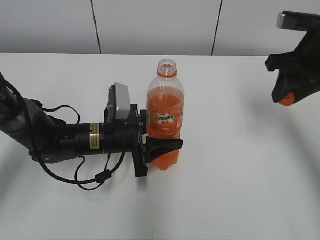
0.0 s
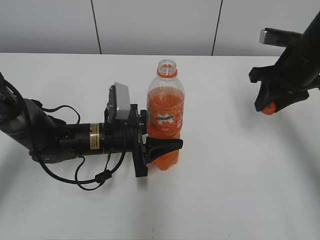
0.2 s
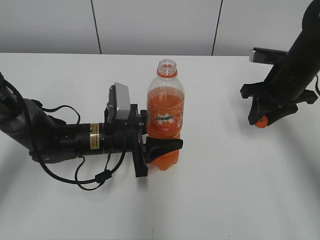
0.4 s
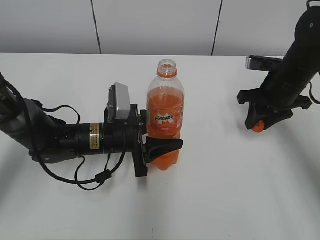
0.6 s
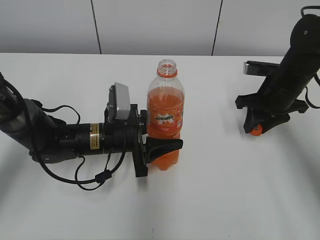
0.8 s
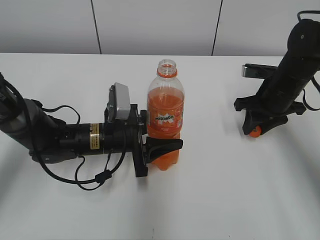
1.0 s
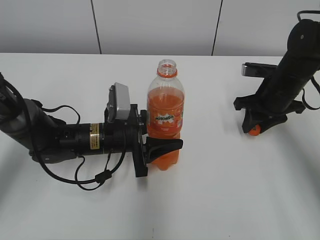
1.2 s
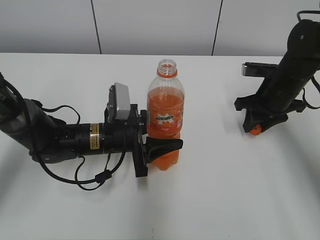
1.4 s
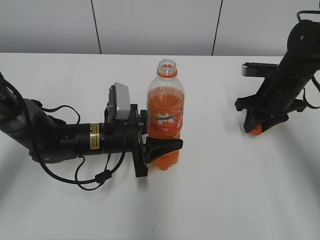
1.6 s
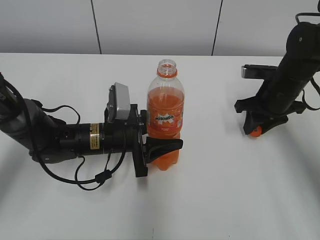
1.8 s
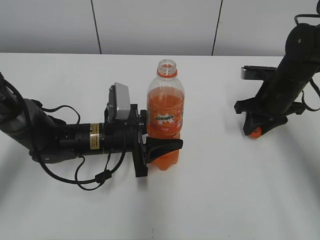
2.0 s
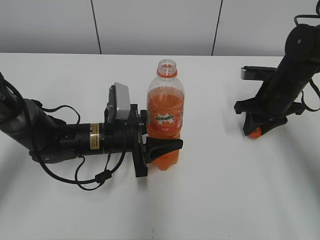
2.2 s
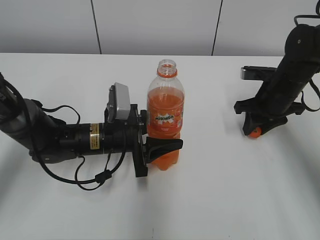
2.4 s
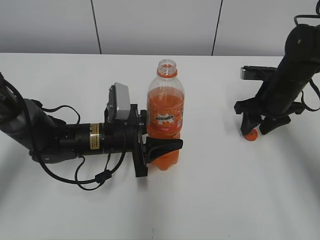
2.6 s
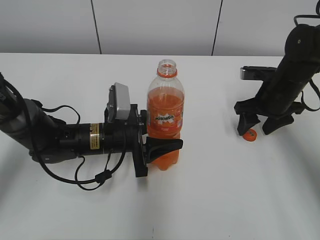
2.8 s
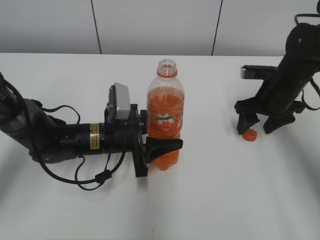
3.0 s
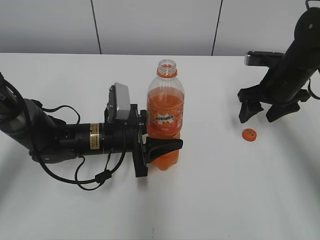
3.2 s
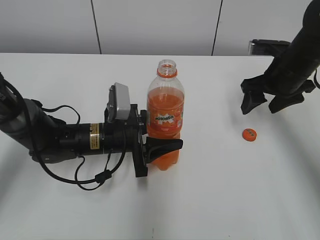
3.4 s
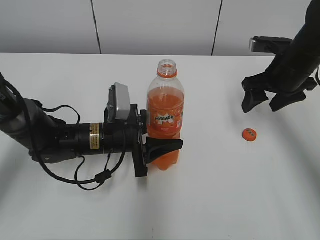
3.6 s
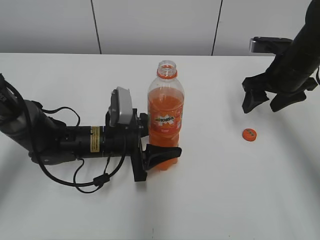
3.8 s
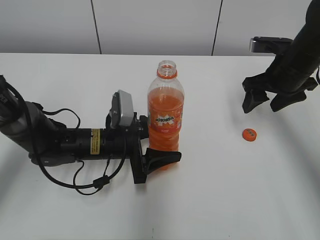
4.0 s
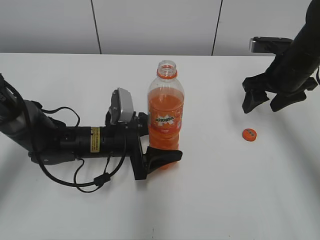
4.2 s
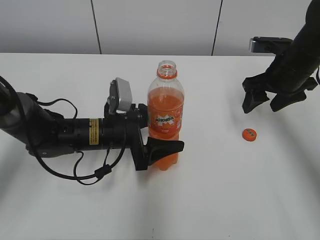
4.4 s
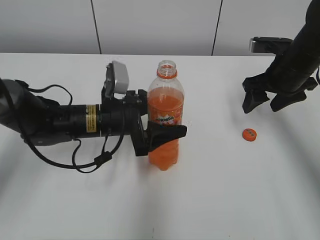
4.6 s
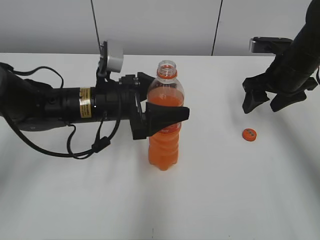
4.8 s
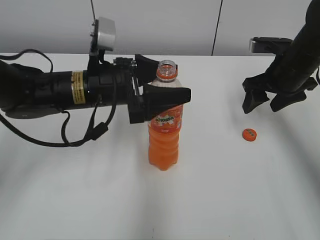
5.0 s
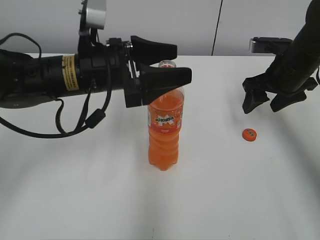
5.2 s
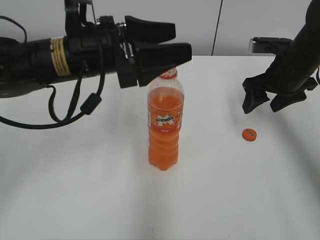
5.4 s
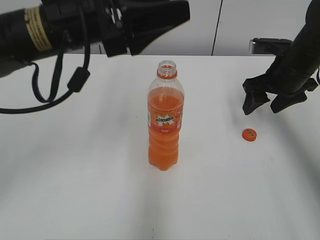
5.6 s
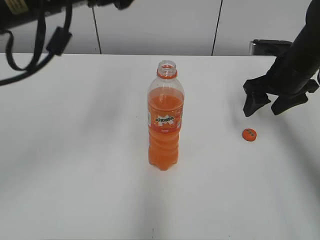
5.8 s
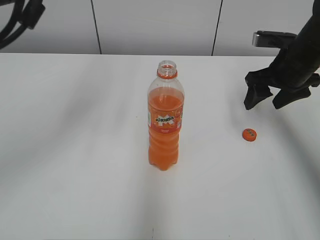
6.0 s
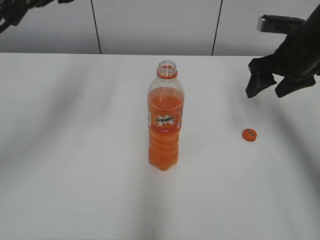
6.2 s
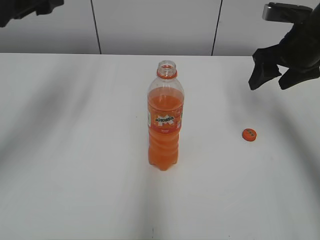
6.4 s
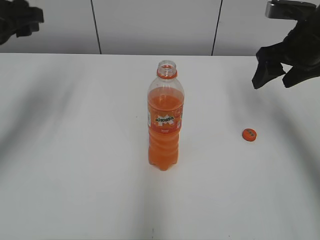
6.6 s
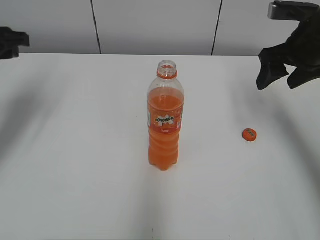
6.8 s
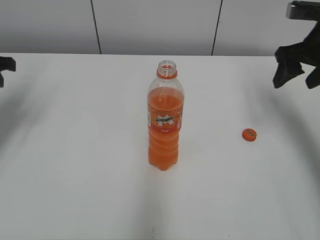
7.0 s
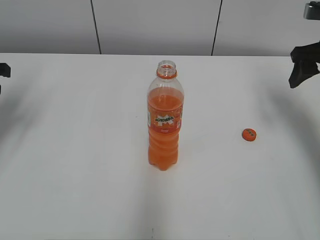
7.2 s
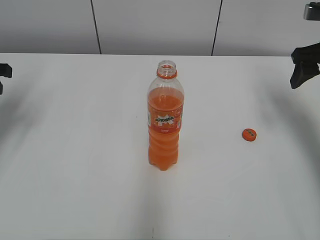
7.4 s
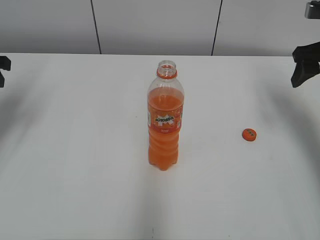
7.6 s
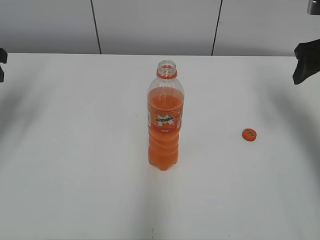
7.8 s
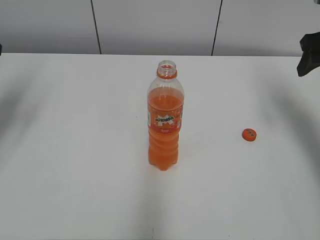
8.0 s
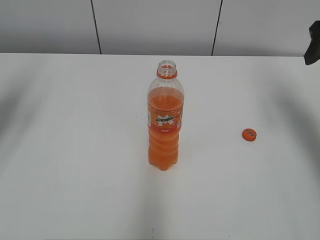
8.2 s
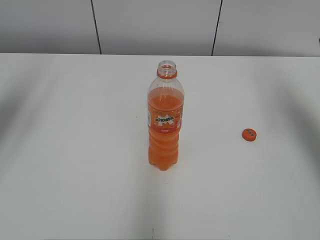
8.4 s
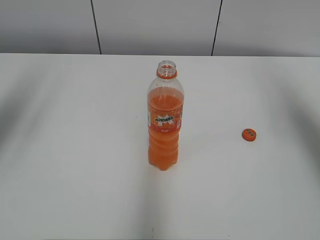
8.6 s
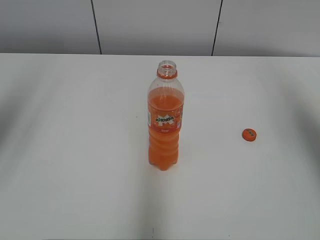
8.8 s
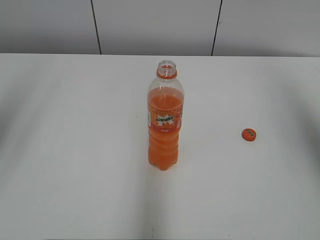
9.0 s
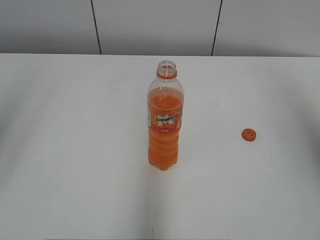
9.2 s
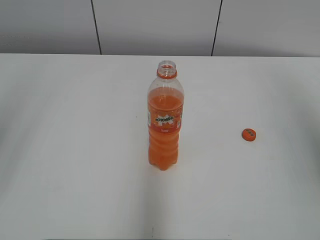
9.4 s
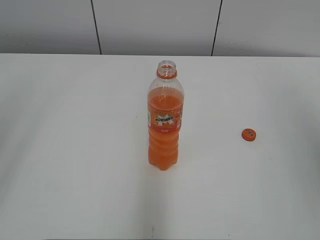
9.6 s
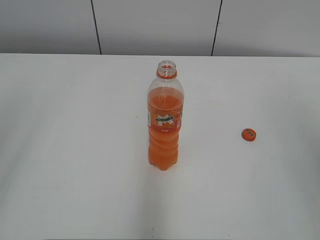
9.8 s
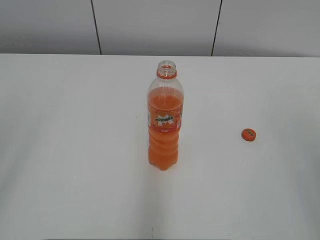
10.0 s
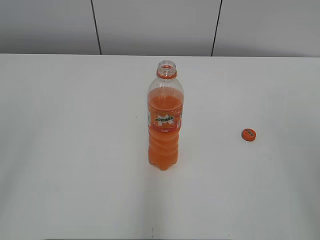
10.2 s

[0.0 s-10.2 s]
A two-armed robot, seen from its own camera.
Step, 0.0 to 2.6 s: Place the bottle cap on the right.
Step, 2.8 to 4.4 s: Place the Mirinda with the left hand.
0.0 to 1.4 s: The right gripper shifts some 10 cm downward.
1.4 to 3.0 s: The right gripper opens up.
3.0 to 4.4 s: The left gripper opens its fingers; the right gripper is displaced upward by approximately 5 cm.
4.4 to 5.8 s: The left gripper travels upward by roughly 25 cm.
5.8 to 7.2 s: The left gripper is displaced to the left and downward by about 25 cm, and closes up. Meanwhile the right gripper goes roughly 10 cm upward and to the right.
7.2 to 8.8 s: The right gripper shifts approximately 20 cm upward and backward.
8.8 to 10.2 s: The two grippers go some 20 cm backward.

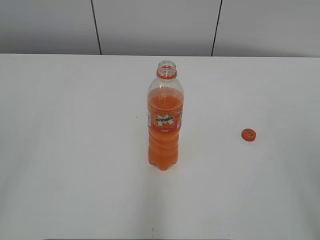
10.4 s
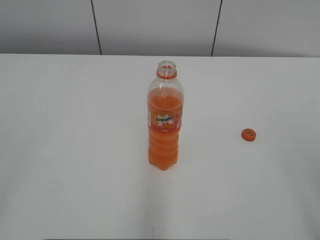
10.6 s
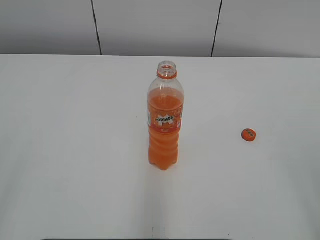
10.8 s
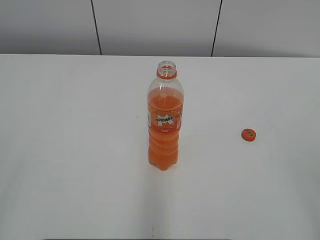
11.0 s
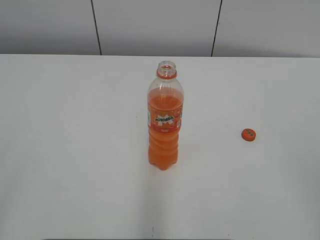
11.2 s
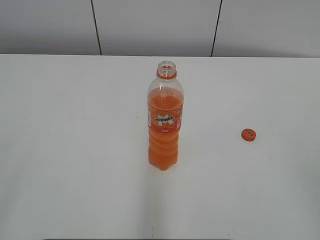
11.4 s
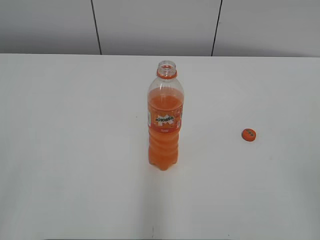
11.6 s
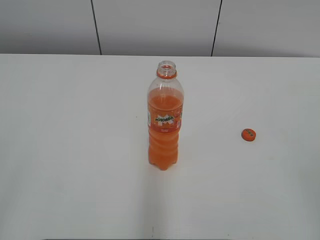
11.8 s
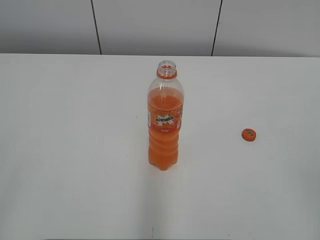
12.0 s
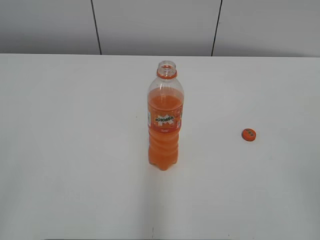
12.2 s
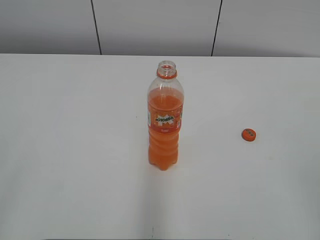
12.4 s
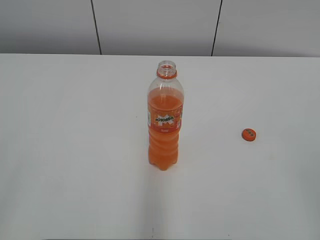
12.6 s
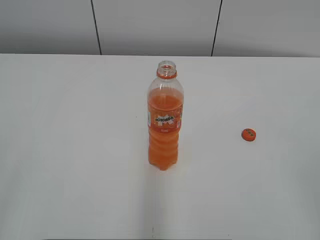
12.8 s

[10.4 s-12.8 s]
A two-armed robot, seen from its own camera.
11.6 to 12.8 s: The two grippers keep their place.

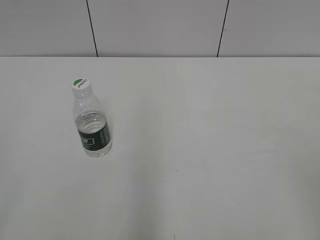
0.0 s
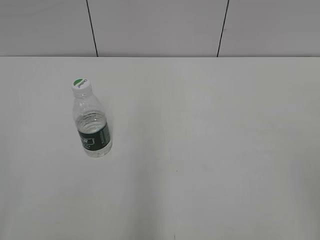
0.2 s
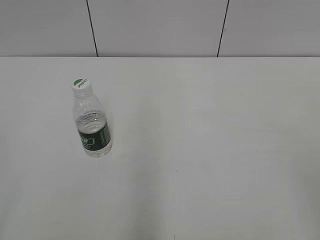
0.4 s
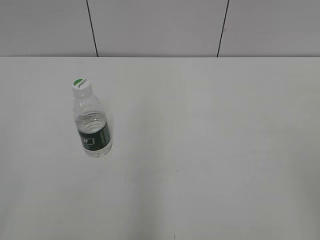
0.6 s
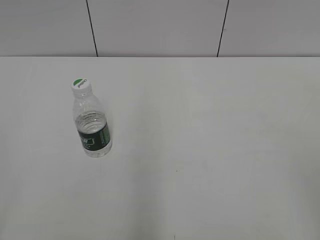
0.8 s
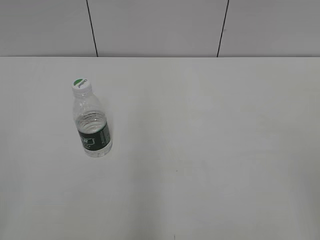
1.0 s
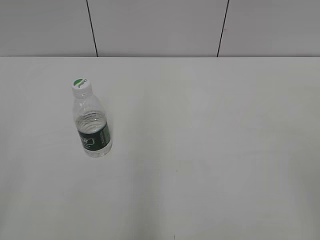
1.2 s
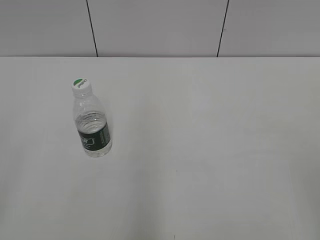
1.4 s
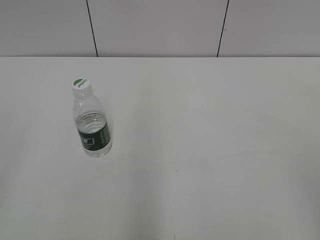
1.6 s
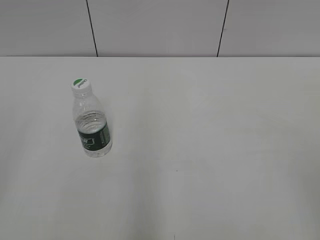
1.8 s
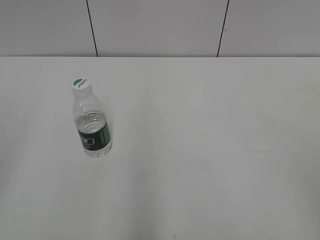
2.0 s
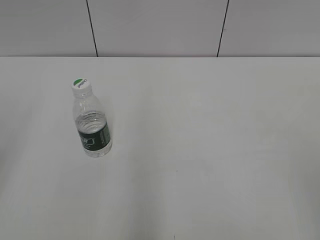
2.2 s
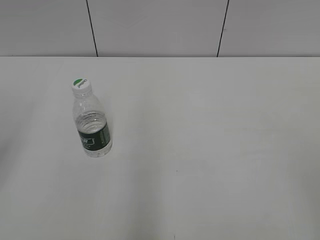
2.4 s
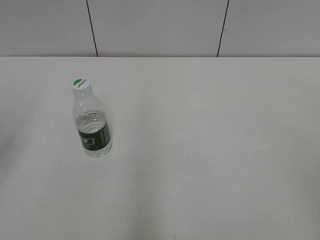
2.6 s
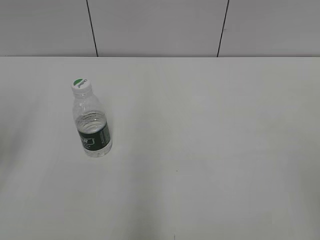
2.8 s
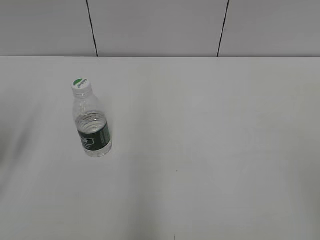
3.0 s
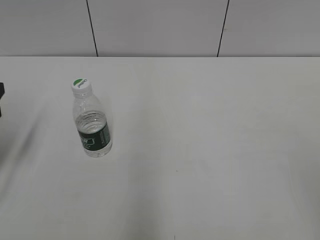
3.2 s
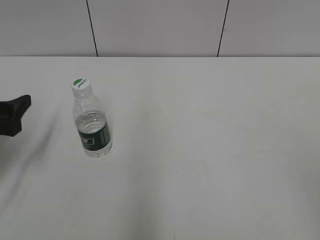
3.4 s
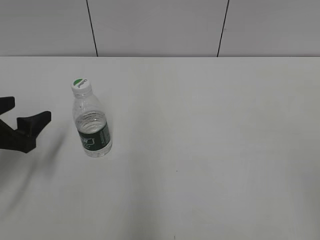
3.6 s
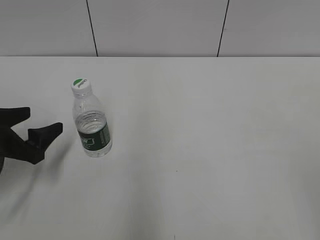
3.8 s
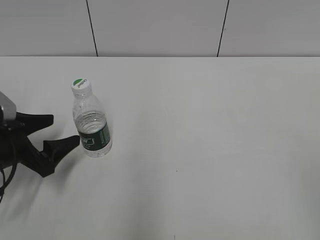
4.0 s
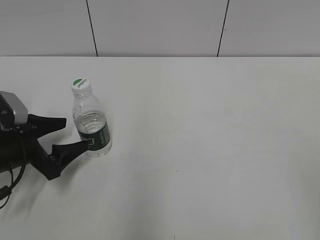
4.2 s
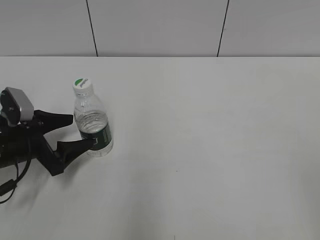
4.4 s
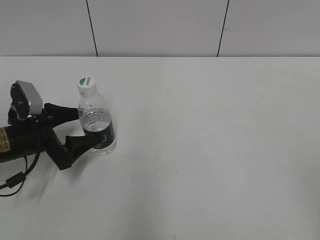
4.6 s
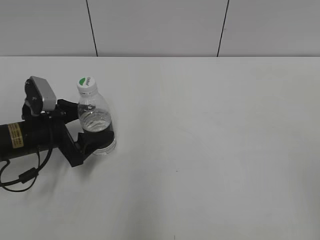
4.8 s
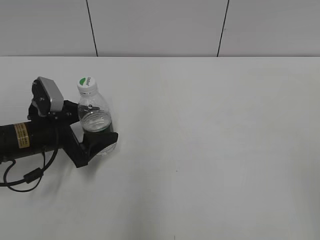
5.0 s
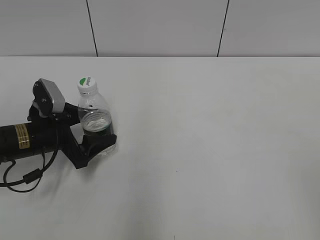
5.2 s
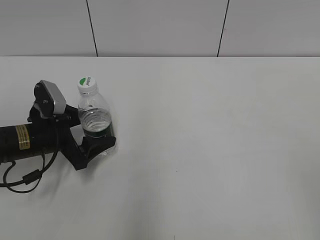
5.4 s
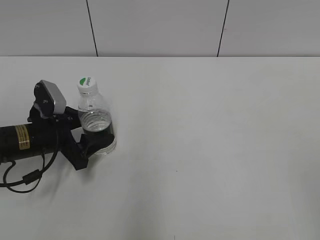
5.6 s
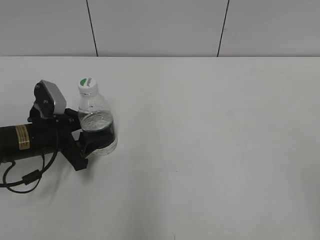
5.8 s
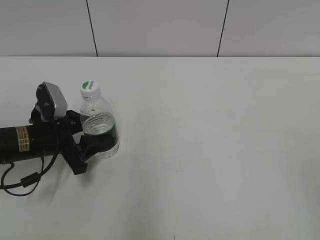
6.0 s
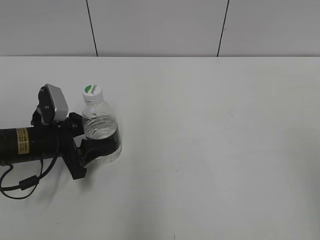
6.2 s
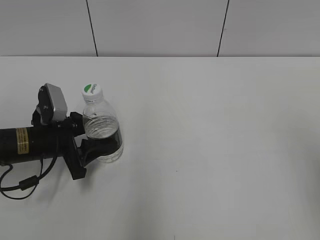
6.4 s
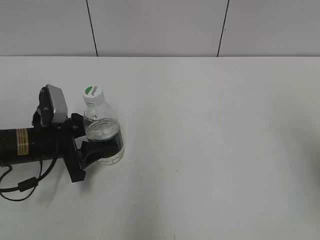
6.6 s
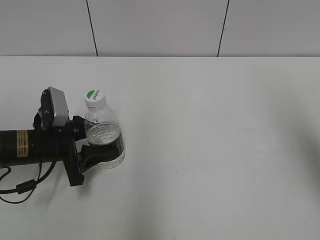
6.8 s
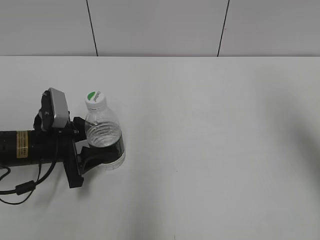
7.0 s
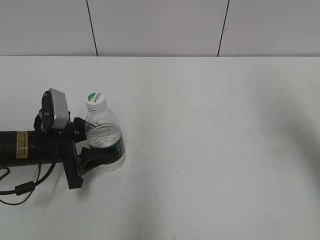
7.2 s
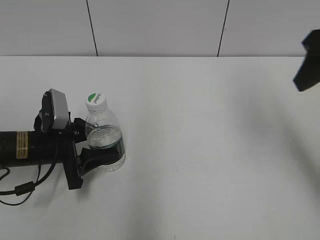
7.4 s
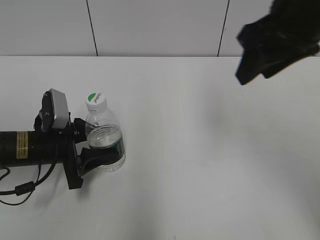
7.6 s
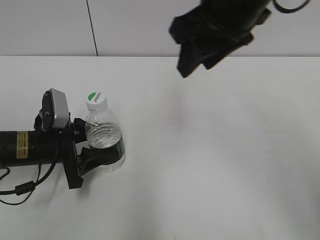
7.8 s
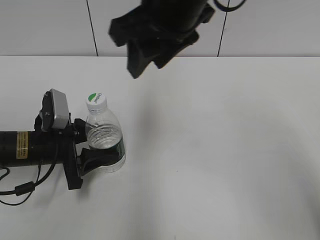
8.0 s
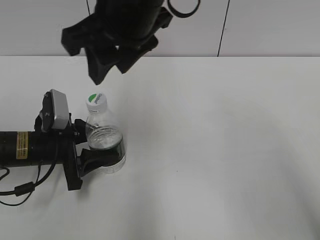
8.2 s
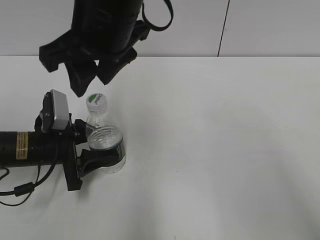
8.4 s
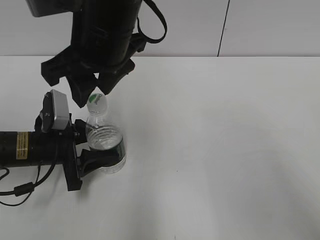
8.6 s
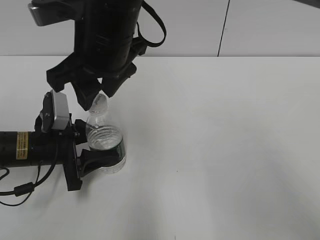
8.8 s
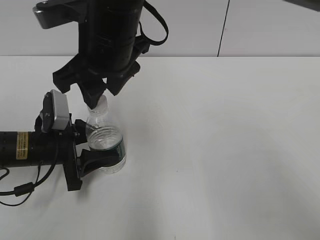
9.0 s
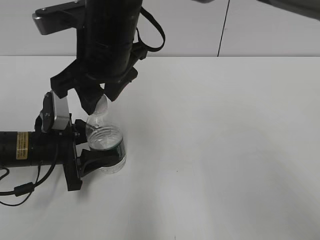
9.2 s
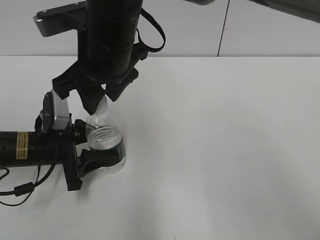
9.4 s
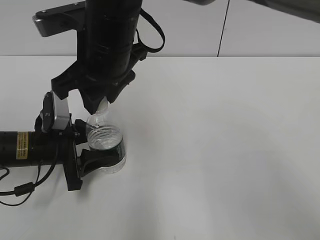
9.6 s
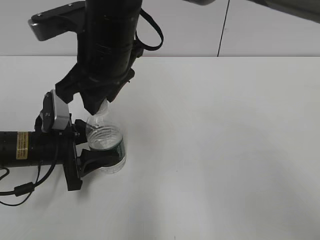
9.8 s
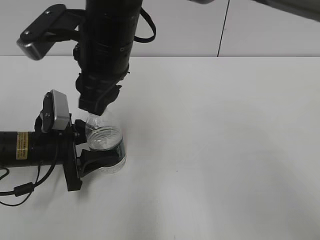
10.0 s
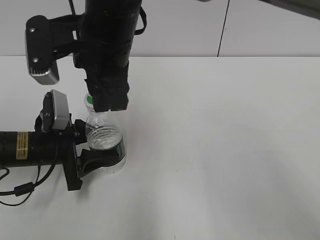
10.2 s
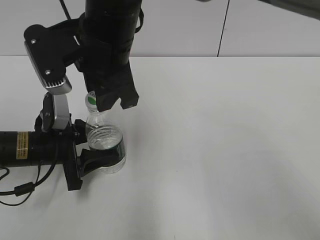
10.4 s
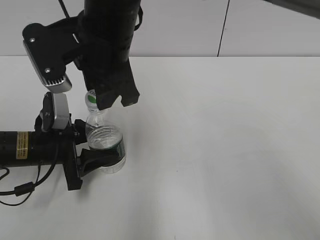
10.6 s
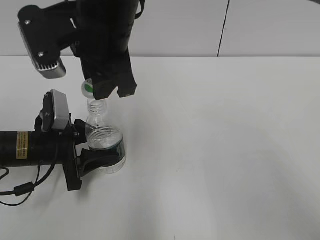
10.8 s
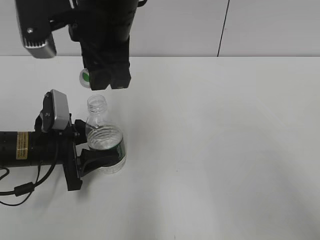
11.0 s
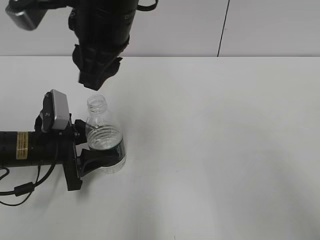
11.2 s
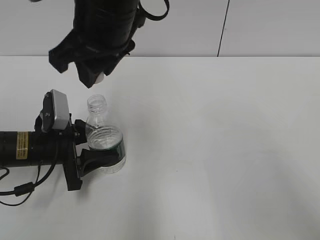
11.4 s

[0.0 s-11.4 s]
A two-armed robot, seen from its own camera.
Step, 0.0 to 7.0 s: Grasp the bottle and move it to the center of the table with the left gripper.
Step, 7.4 to 11.0 s: Unscrew the bottle cap with the right gripper while holding the bottle with the left gripper.
2.8 to 4.2 s: The left gripper moves downward and to the right, some 15 cm.
4.2 to 5.6 s: The left gripper ends up roughly 5 cm from where it was.
5.6 to 7.2 s: The right gripper goes some 25 cm forward, and closes its fingers.
7.2 to 8.6 s: The right gripper is displaced to the left by some 35 cm.
